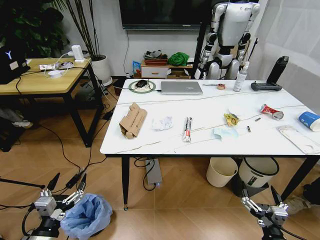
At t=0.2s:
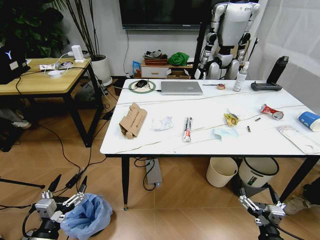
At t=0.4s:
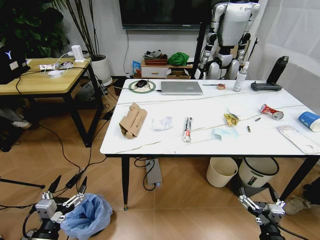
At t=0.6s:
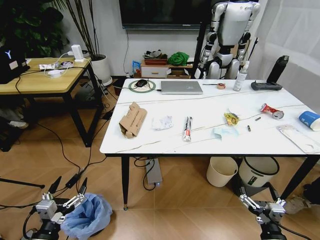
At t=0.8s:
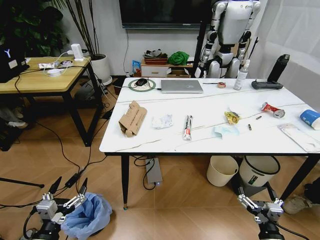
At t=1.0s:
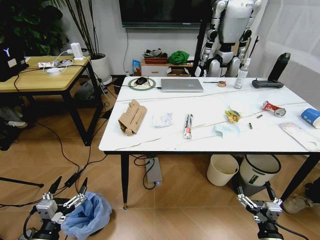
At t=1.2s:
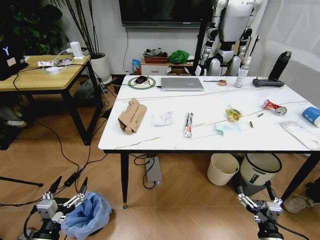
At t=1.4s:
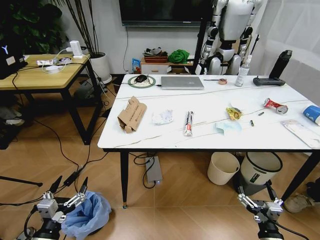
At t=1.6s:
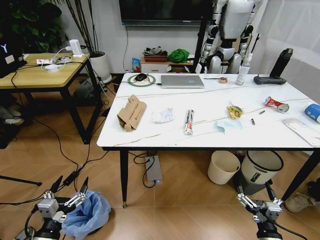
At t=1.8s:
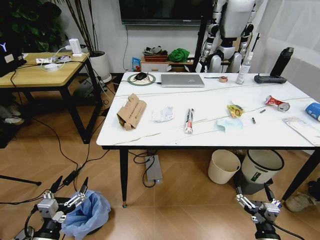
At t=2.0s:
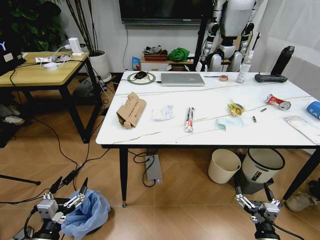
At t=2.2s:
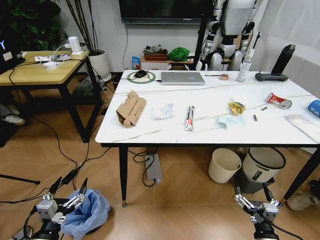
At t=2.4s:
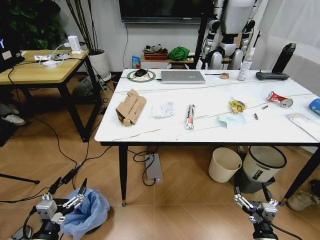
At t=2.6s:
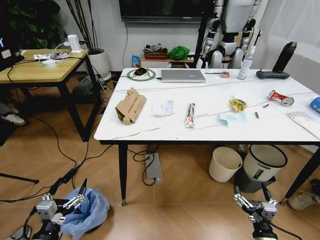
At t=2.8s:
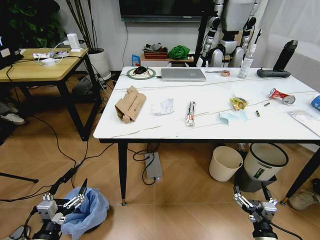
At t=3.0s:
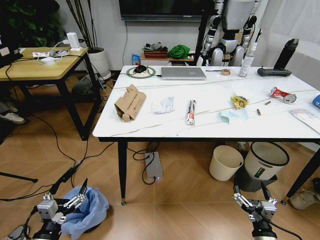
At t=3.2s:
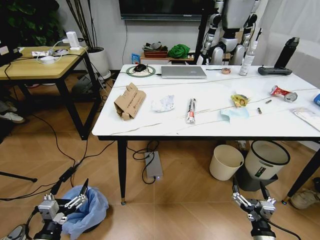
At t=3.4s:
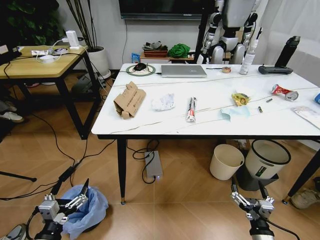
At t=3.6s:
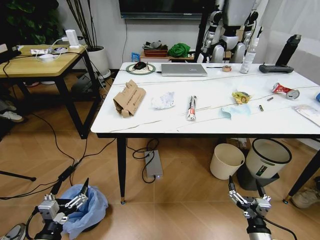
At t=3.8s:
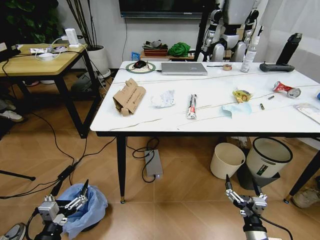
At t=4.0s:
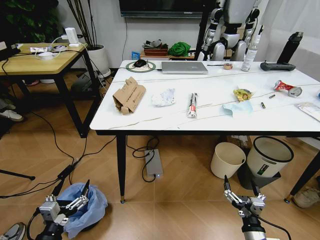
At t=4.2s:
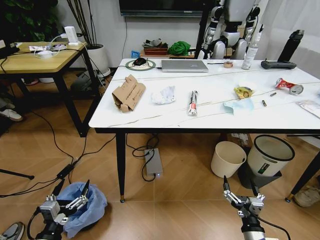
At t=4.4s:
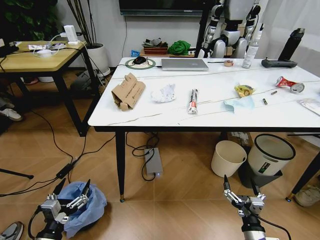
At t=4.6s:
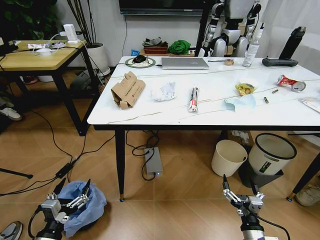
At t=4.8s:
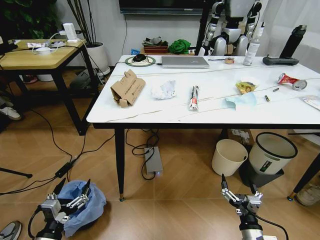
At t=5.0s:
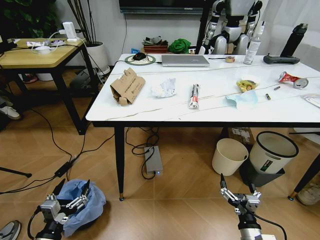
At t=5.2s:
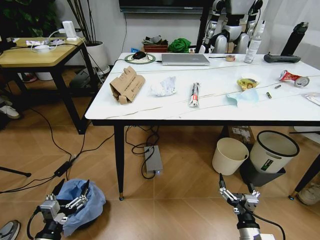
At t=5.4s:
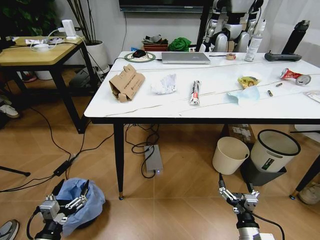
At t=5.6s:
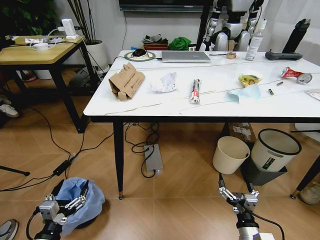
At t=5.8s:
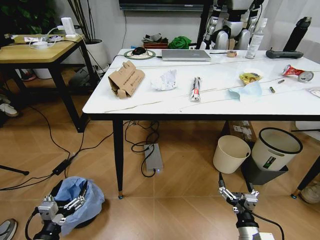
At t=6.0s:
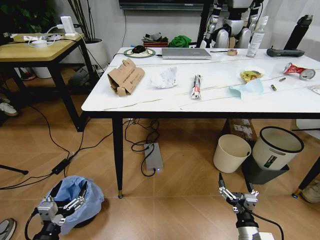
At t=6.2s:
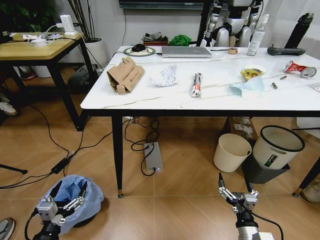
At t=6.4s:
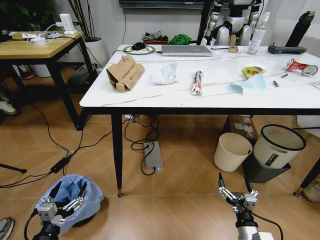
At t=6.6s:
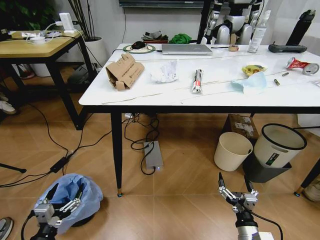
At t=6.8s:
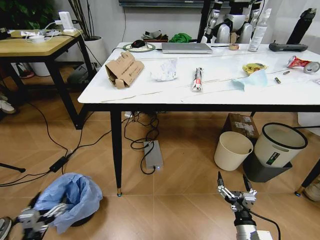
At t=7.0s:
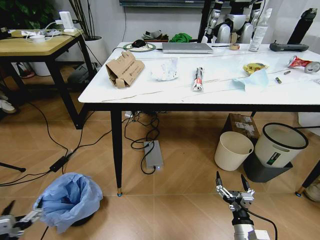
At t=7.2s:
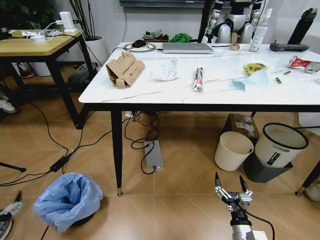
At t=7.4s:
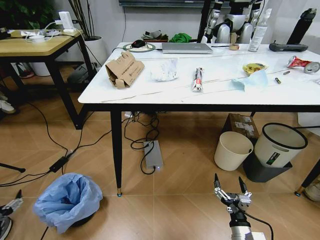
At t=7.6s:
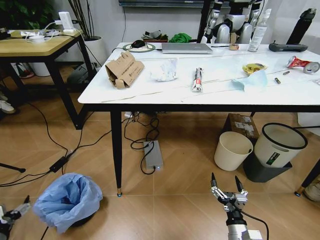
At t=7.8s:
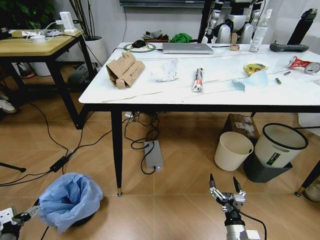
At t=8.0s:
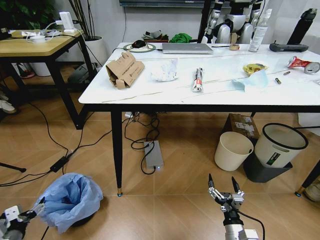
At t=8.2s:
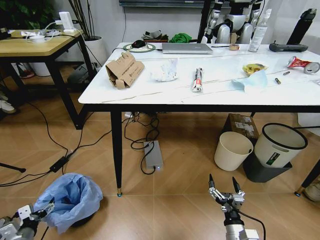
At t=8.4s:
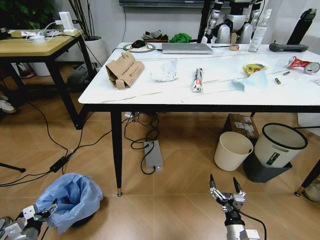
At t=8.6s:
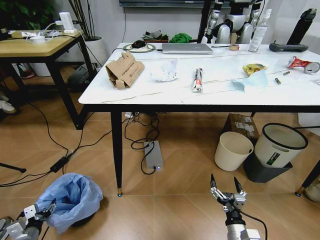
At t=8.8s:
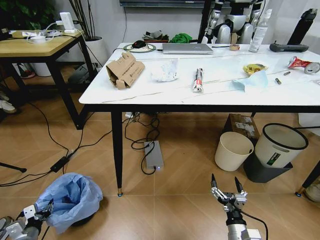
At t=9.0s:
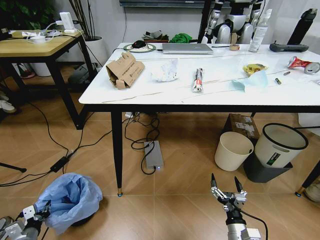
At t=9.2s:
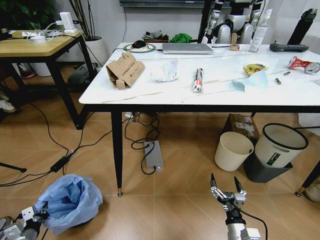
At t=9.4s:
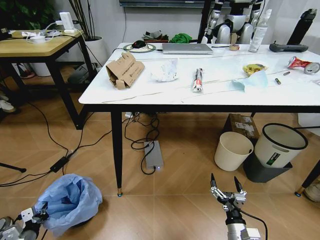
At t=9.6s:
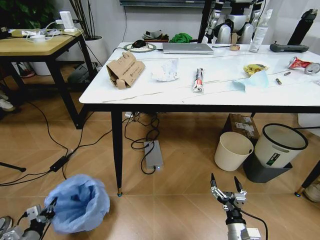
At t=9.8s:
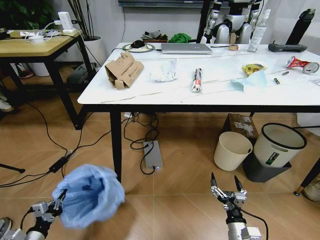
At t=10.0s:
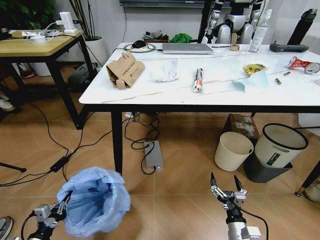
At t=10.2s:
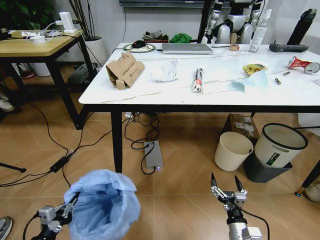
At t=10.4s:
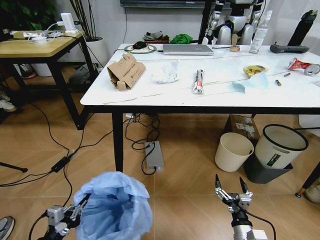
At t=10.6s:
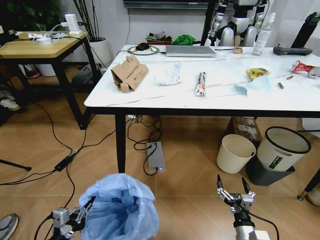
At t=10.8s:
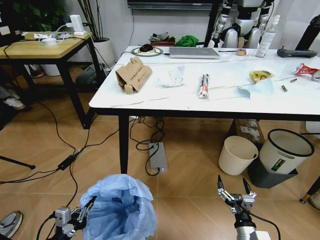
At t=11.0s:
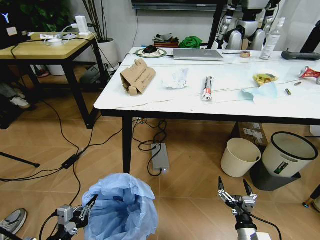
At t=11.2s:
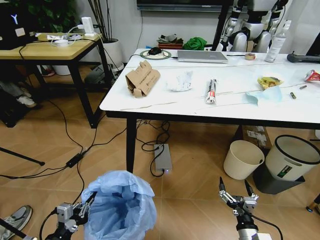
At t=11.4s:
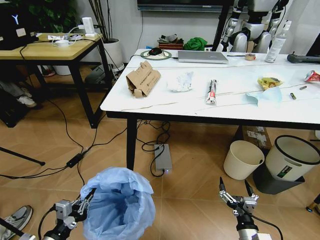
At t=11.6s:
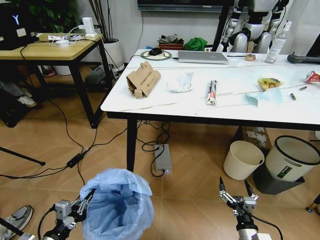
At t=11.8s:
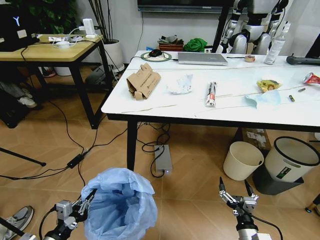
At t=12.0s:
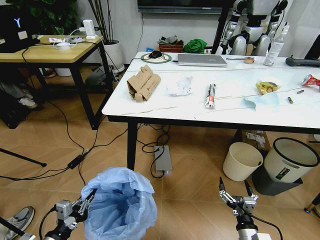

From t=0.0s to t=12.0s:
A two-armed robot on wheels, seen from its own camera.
Task of the whole recording: Pick up the trash bin and place the trash from the table into it.
From t=6.0s to t=7.6s: The left gripper travels to the left by some 15 cm.
From t=7.6s to t=9.0s: The left gripper travels downward by approximately 10 cm, and closes.
From t=9.0s to t=10.4s: The left gripper is displaced upward, to the right and backward by about 20 cm.

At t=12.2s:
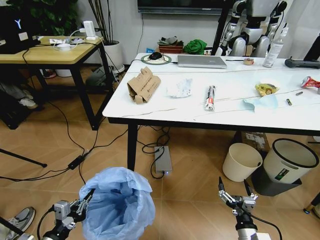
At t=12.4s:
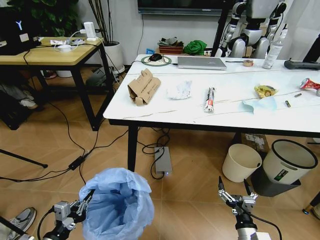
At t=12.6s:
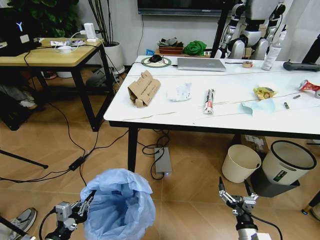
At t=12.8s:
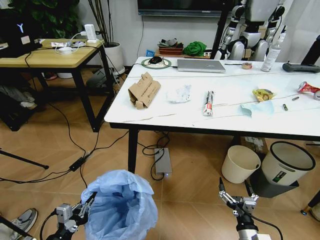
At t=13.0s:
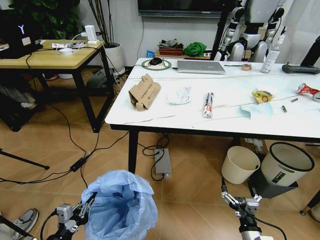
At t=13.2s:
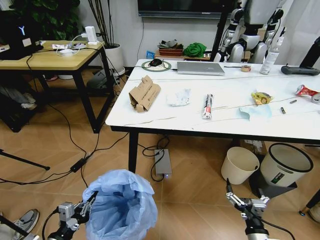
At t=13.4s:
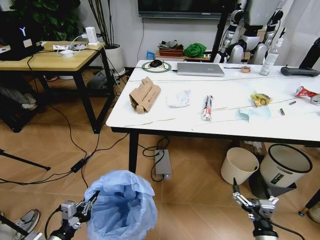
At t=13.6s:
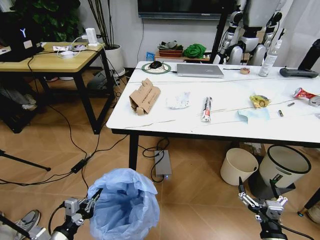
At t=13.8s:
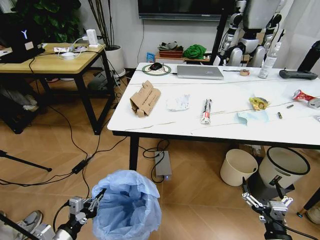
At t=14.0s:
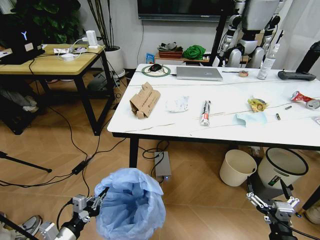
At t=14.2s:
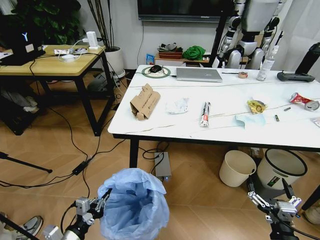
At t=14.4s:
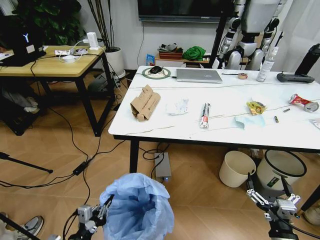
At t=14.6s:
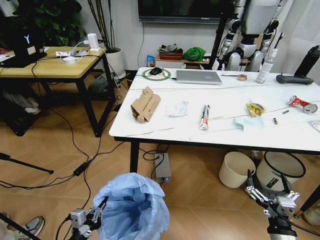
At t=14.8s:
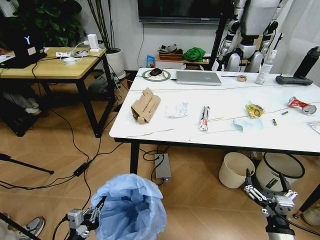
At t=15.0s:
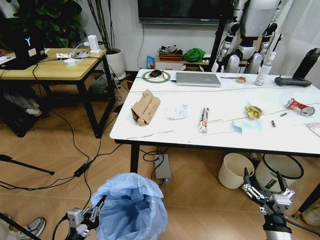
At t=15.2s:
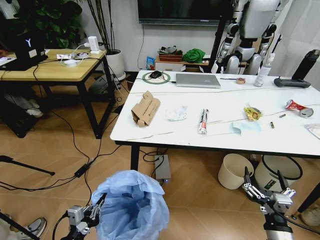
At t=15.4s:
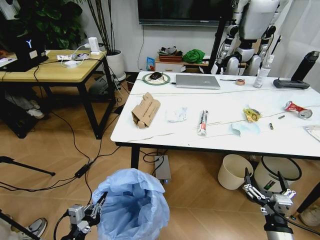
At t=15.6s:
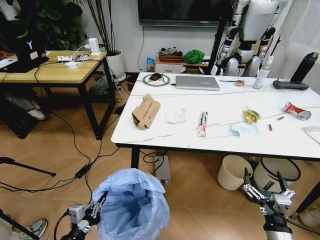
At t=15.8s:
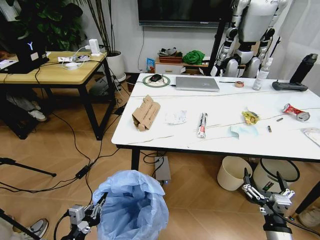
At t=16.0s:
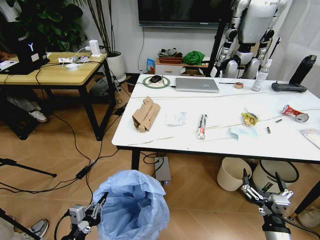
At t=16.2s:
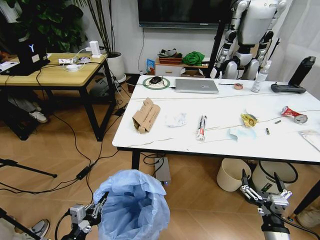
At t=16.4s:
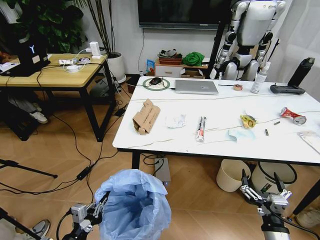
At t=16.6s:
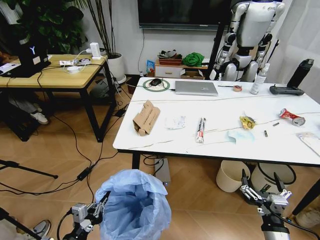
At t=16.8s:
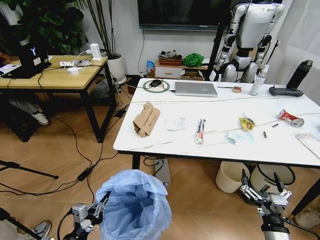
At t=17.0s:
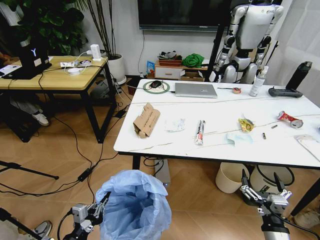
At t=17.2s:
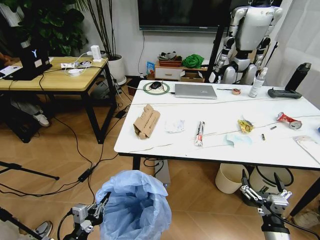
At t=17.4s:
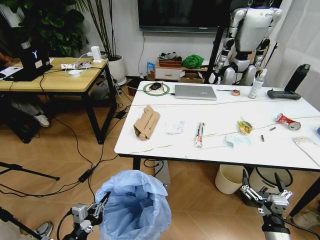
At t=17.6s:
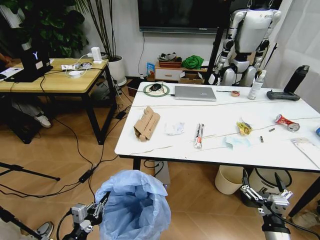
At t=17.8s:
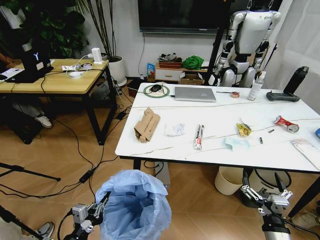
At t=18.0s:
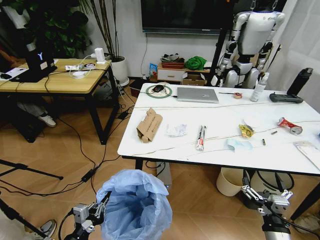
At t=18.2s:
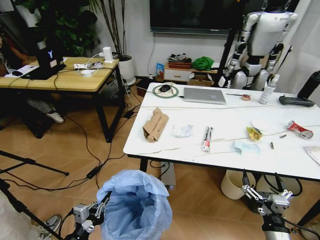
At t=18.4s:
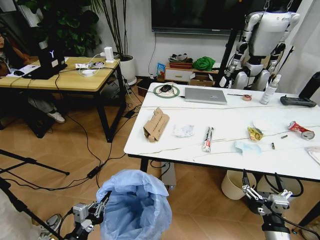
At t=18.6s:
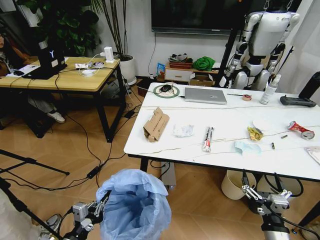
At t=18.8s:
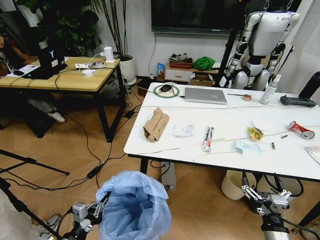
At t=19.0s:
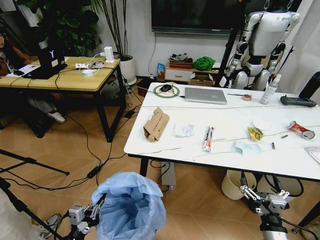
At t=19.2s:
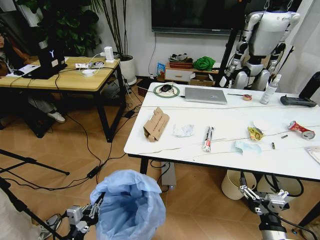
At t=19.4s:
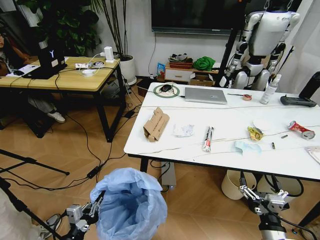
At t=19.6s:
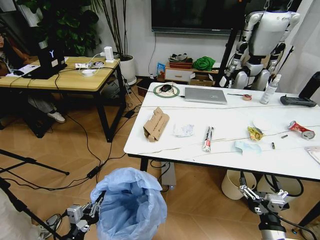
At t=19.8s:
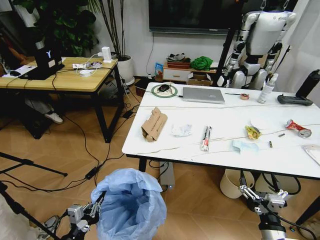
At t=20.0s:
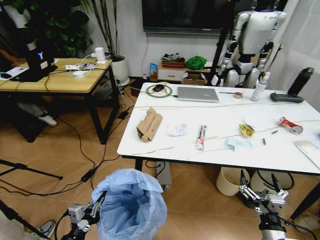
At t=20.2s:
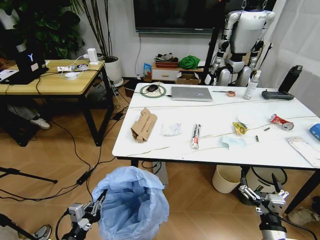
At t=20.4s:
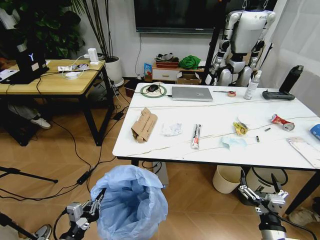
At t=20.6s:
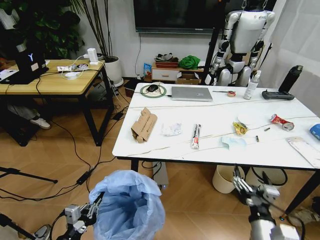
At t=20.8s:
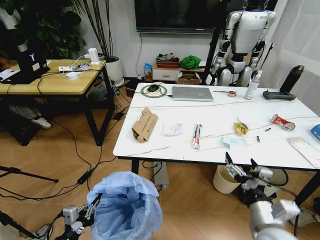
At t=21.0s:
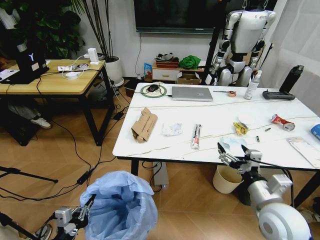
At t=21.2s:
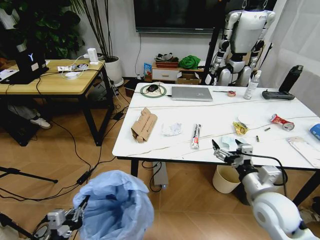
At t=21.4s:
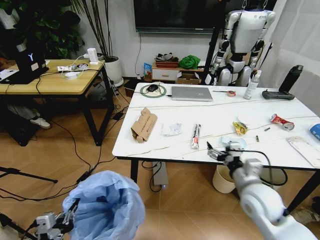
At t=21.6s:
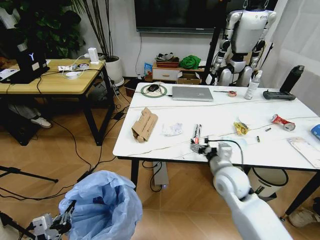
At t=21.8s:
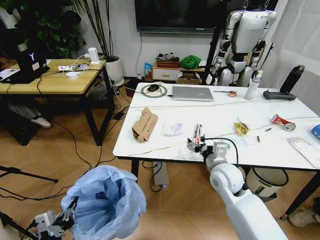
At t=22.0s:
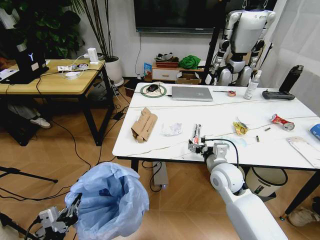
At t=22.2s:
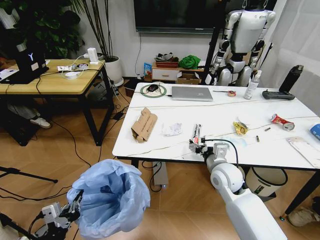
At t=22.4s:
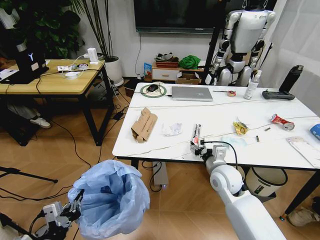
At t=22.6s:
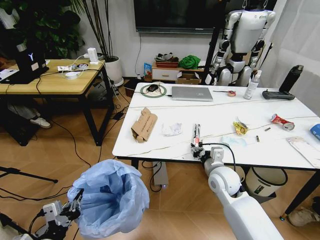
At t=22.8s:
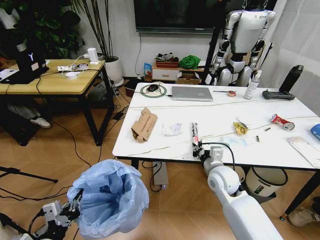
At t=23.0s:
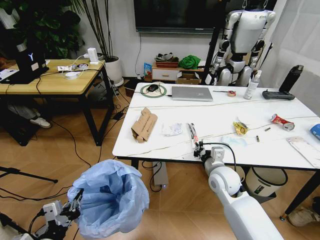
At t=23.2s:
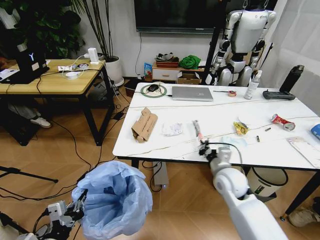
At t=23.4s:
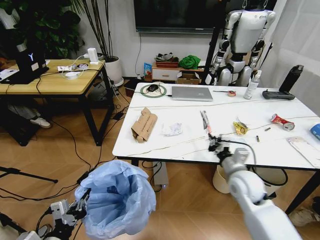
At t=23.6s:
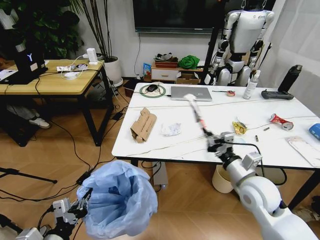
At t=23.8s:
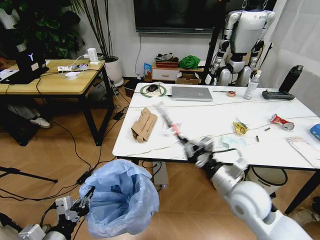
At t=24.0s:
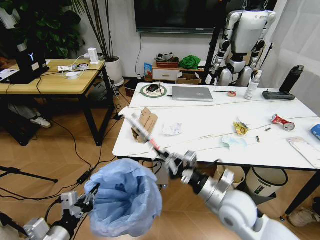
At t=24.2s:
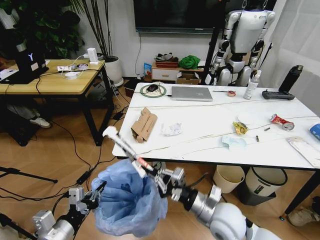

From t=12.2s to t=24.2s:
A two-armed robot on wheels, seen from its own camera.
Task of the whole recording: Pick up the trash bin and place the trash from the table into it.
From t=12.2s to t=13.8s: The right gripper shifts about 5 cm upward.
From t=13.8s to t=15.2s: The left gripper changes place by approximately 5 cm.
From t=18.2s to t=19.8s: The grippers move only a little.
From t=19.8s to t=21.2s: The right gripper shifts some 15 cm forward and upward. Meanwhile the left gripper moves approximately 5 cm.
From t=21.2s to t=22.6s: The right gripper is displaced forward and to the left by some 15 cm, and closes up.
From t=22.6s to t=24.2s: The right gripper heads backward, covering roughly 10 cm, and closes.
